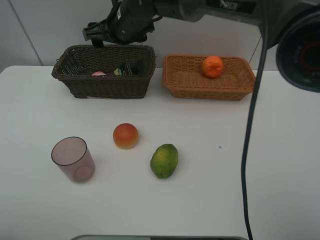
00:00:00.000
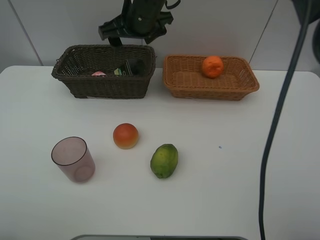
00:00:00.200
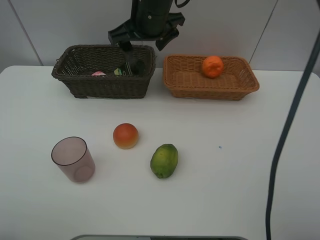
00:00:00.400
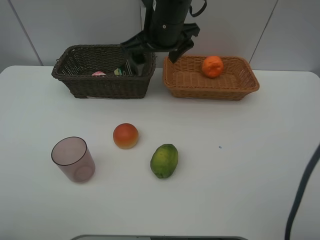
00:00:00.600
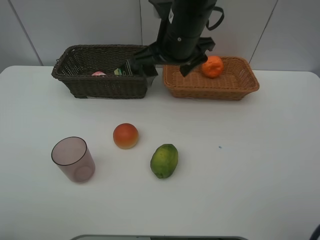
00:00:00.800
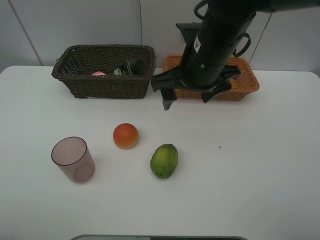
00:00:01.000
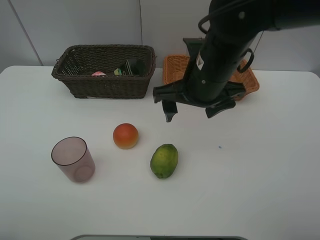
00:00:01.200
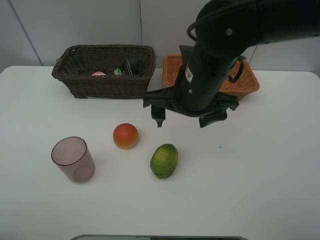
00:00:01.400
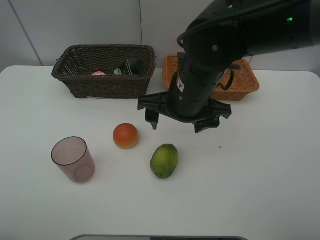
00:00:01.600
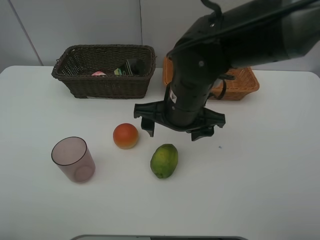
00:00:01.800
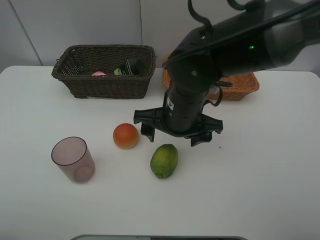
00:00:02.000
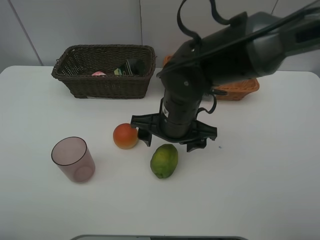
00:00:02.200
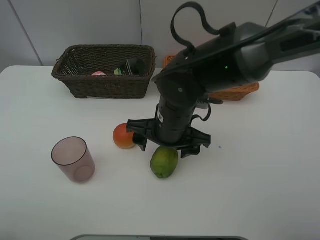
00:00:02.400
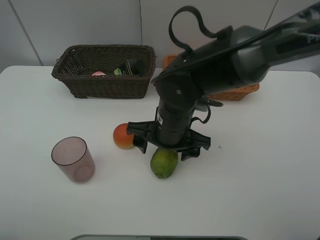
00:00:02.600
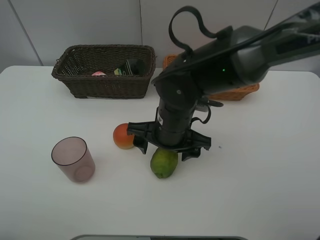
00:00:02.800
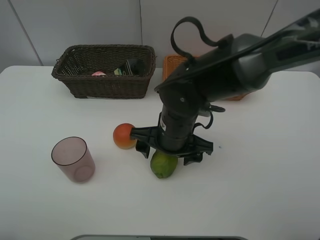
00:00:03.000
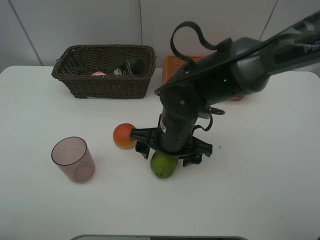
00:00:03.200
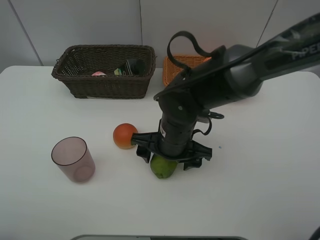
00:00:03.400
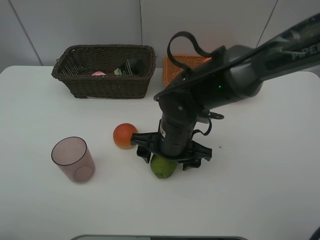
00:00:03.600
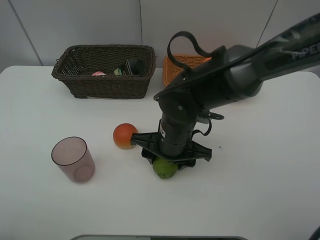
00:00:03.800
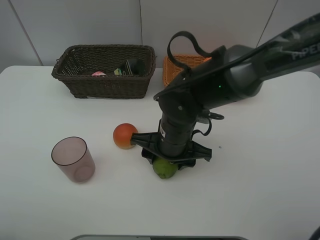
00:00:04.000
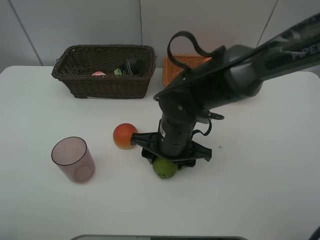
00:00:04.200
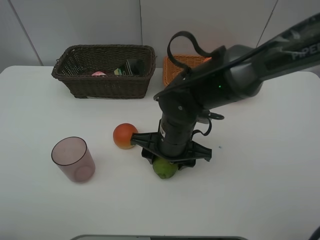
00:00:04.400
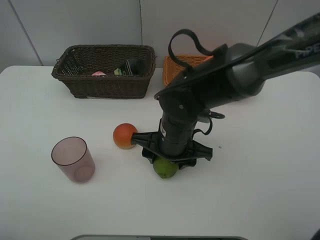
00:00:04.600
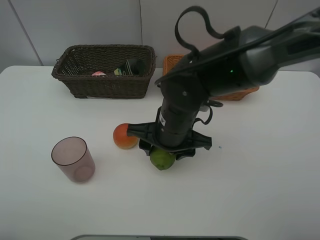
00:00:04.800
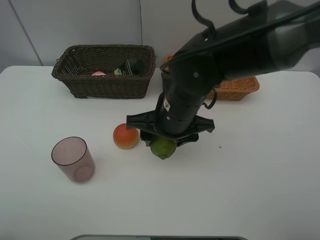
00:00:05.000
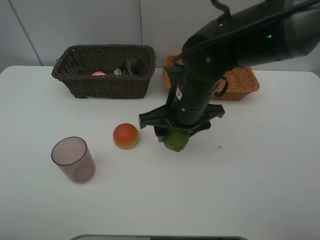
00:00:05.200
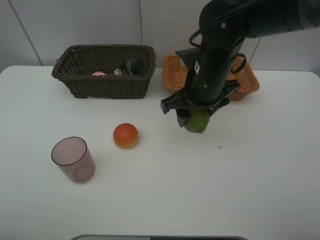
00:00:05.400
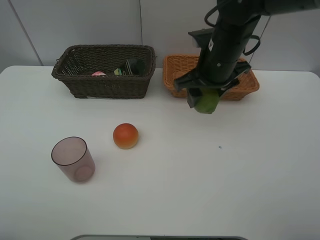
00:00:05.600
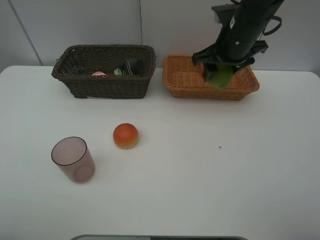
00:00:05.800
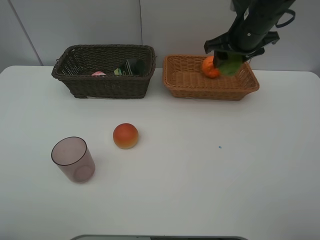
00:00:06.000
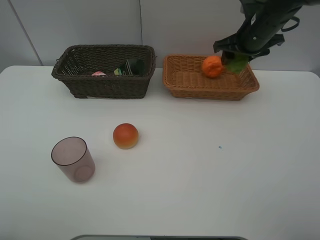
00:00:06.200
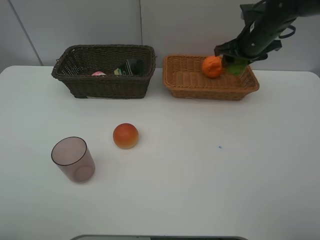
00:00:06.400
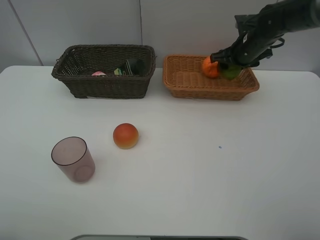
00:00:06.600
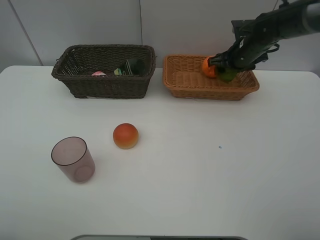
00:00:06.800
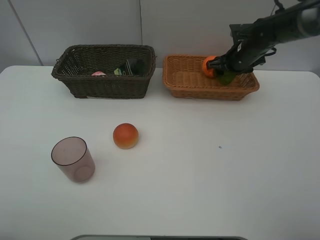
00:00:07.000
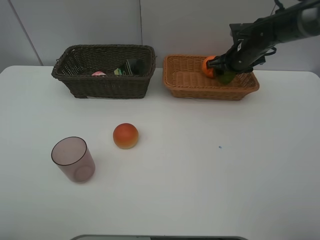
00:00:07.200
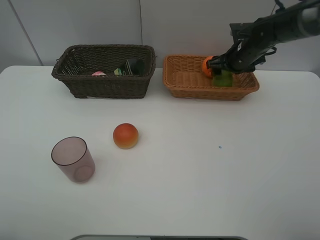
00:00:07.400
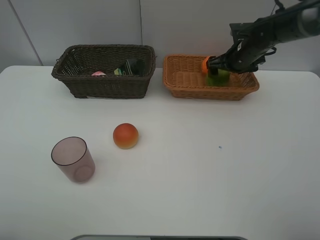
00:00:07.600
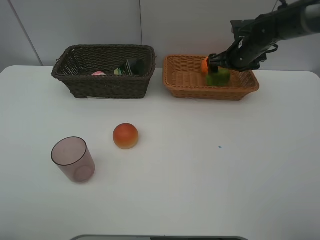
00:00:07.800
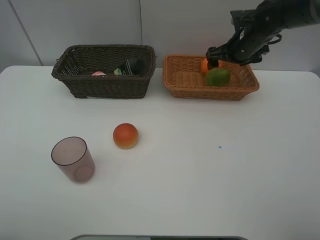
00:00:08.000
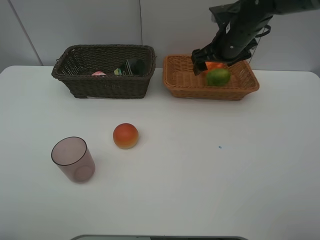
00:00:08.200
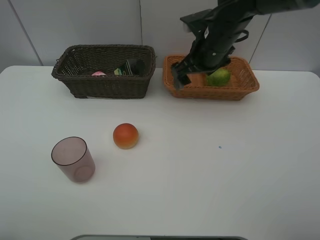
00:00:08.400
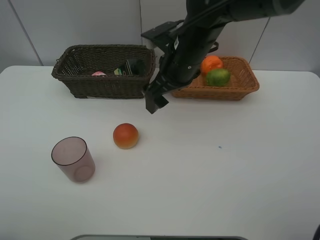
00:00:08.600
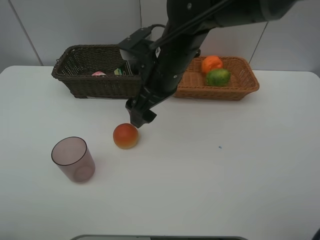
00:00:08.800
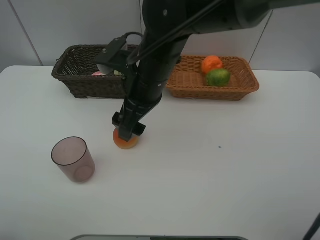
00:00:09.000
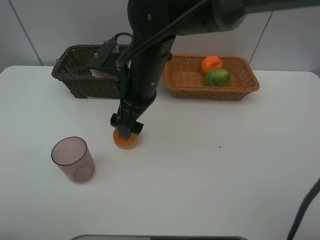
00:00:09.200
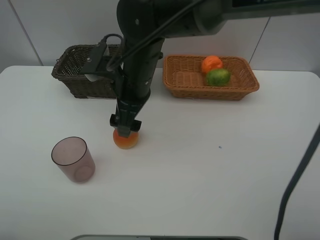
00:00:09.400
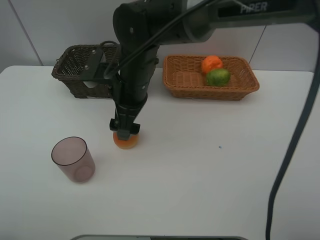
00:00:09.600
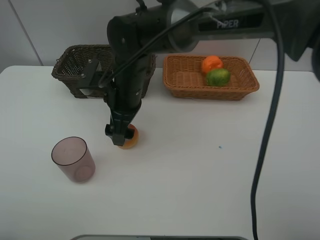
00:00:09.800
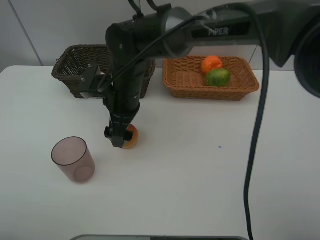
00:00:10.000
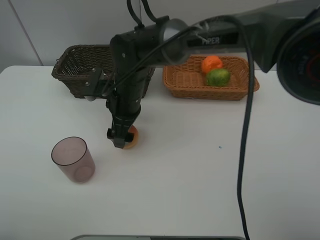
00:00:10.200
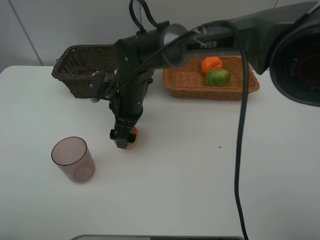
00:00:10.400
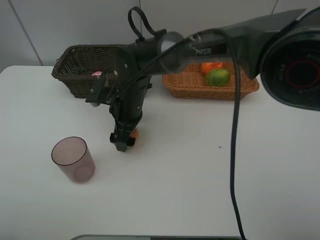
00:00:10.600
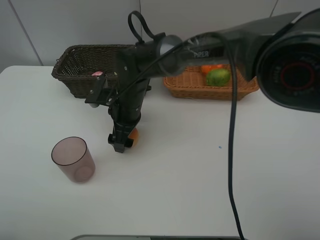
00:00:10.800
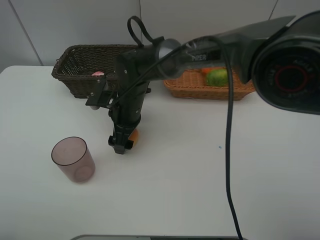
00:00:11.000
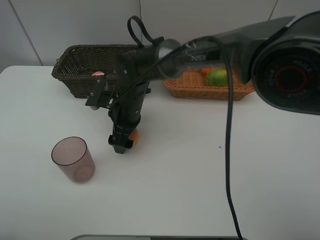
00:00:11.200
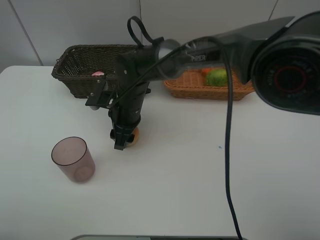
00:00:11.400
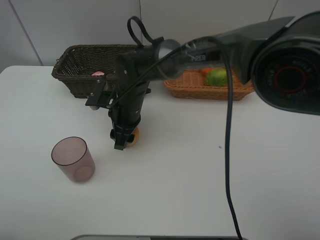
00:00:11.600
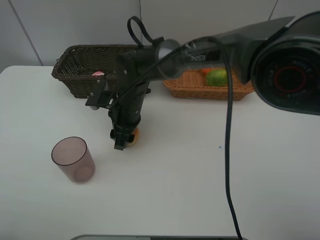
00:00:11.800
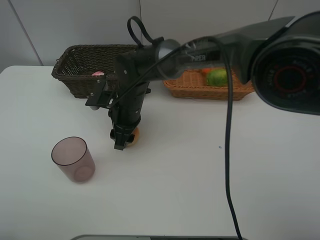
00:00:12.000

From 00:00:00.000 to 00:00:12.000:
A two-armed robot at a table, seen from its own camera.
Task of the whole recording: place multiple objects separately in different baskets.
From 00:00:00.000 to 00:00:01.600: The right gripper moves backward and to the right, about 20 cm.
From 00:00:01.600 to 00:00:03.000: The right gripper goes roughly 10 cm downward.
From 00:00:03.000 to 00:00:04.400: The grippers stay close to where they were, moving slightly.
From 00:00:04.400 to 00:00:06.000: The right gripper moves to the right, forward and upward, approximately 25 cm.
From 00:00:06.000 to 00:00:07.600: The right gripper travels downward and forward by approximately 10 cm, and opens up.
From 00:00:07.600 to 00:00:09.000: The right gripper is displaced to the left and backward by roughly 30 cm.
From 00:00:09.000 to 00:00:10.400: The right gripper shifts approximately 10 cm downward.
From 00:00:10.400 to 00:00:12.000: The right gripper closes up.

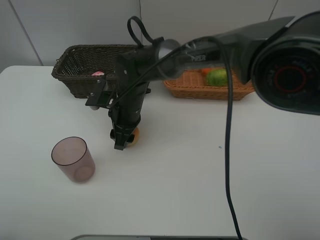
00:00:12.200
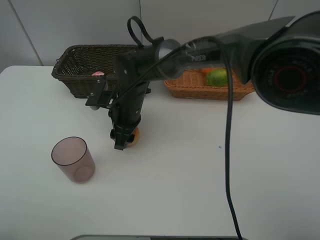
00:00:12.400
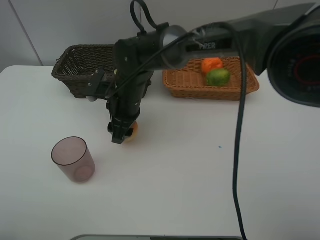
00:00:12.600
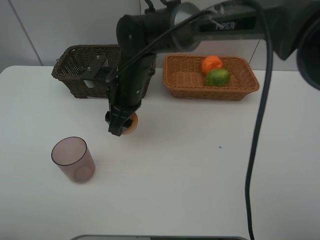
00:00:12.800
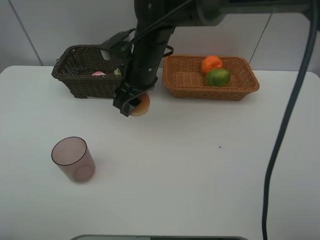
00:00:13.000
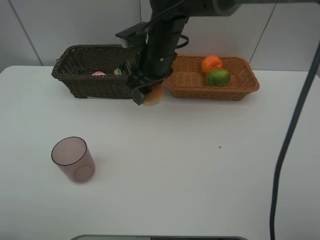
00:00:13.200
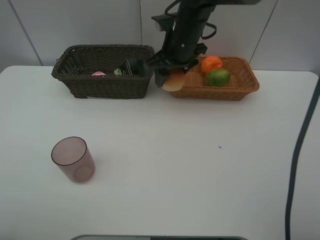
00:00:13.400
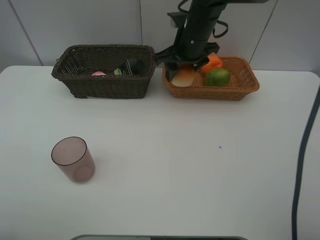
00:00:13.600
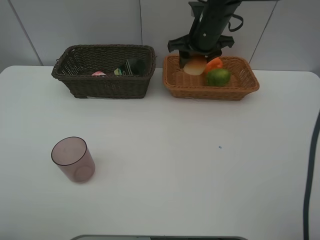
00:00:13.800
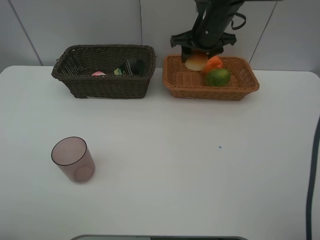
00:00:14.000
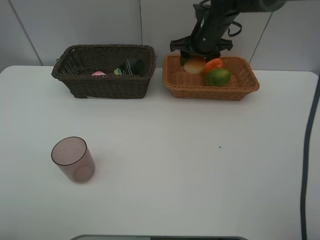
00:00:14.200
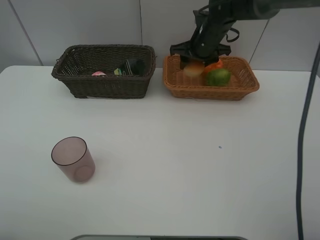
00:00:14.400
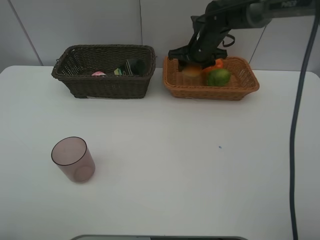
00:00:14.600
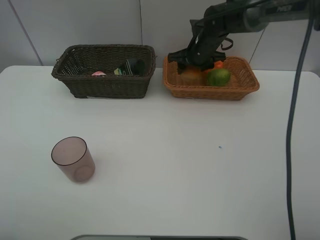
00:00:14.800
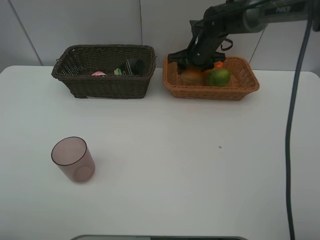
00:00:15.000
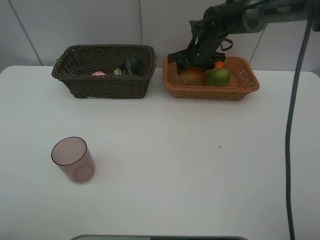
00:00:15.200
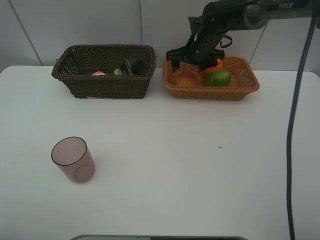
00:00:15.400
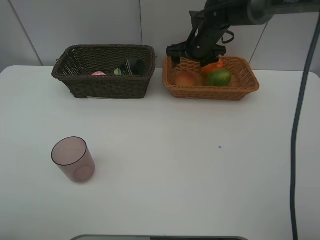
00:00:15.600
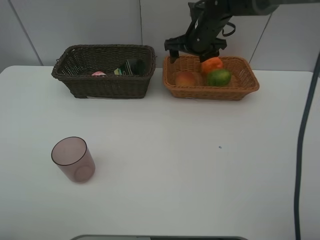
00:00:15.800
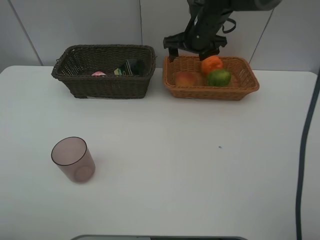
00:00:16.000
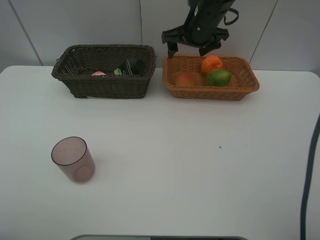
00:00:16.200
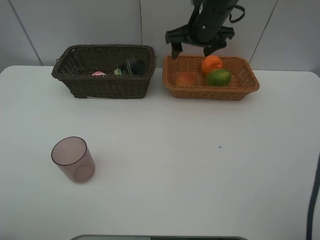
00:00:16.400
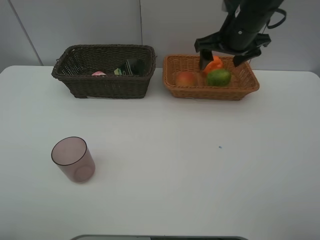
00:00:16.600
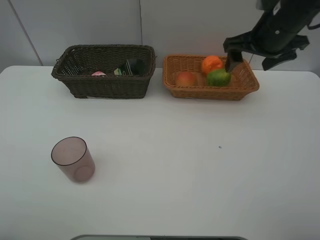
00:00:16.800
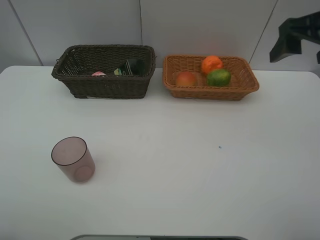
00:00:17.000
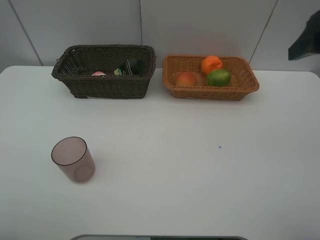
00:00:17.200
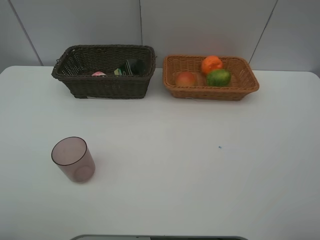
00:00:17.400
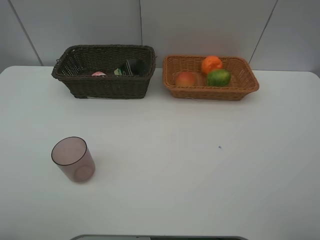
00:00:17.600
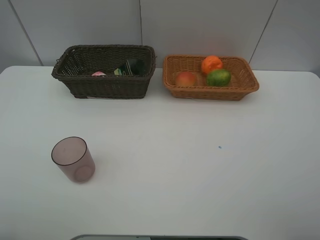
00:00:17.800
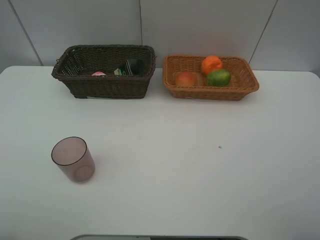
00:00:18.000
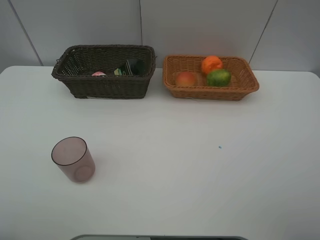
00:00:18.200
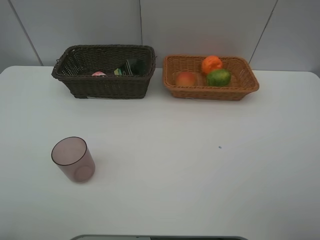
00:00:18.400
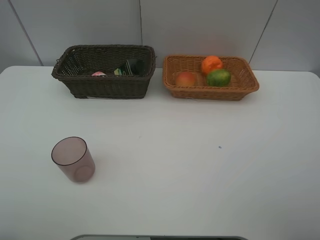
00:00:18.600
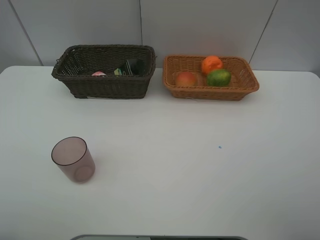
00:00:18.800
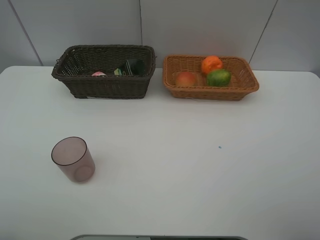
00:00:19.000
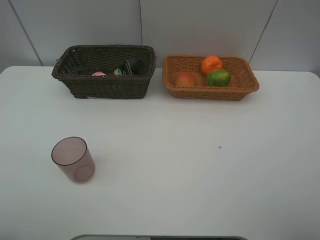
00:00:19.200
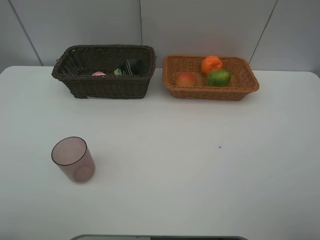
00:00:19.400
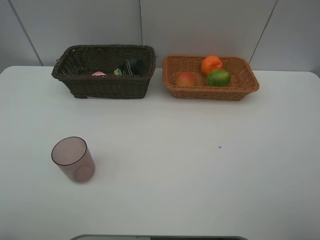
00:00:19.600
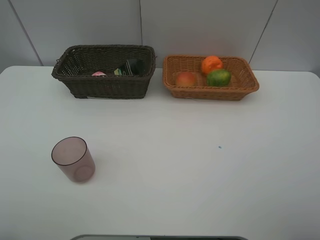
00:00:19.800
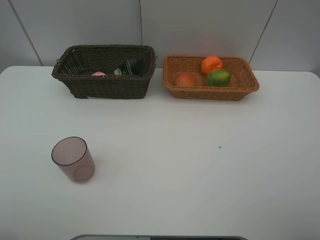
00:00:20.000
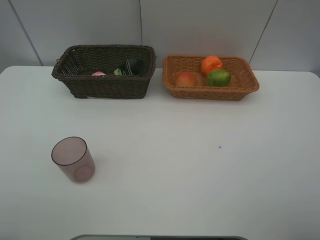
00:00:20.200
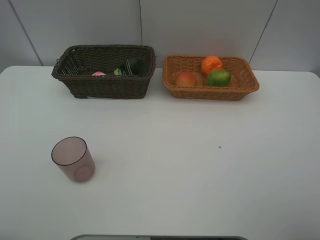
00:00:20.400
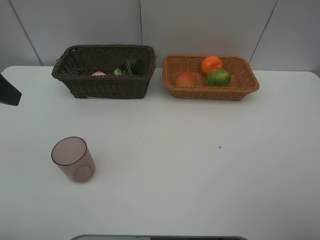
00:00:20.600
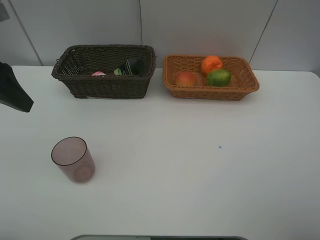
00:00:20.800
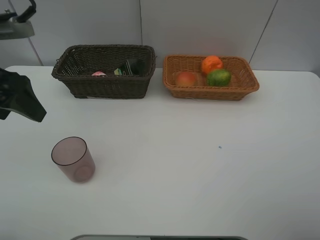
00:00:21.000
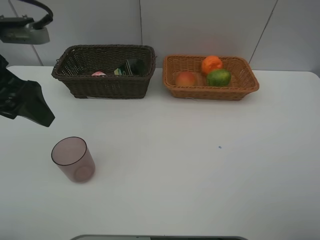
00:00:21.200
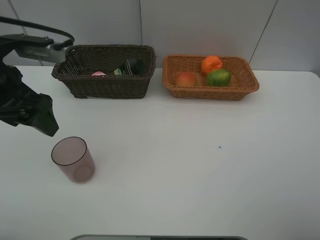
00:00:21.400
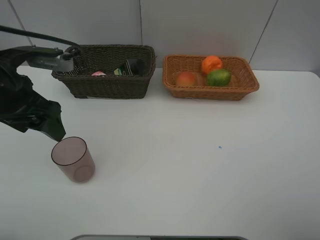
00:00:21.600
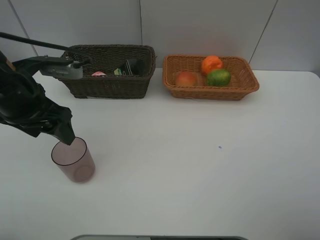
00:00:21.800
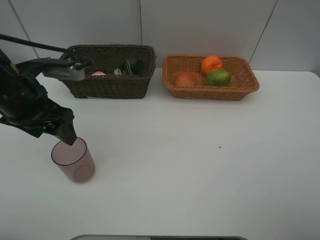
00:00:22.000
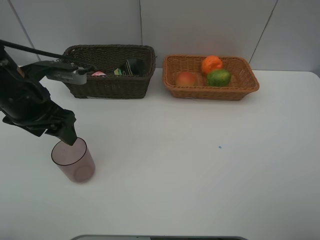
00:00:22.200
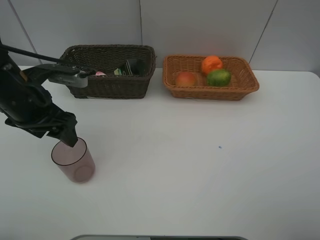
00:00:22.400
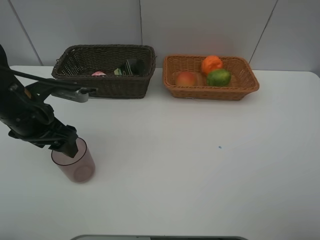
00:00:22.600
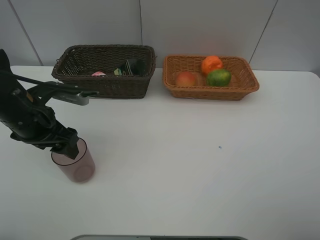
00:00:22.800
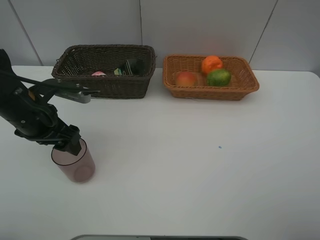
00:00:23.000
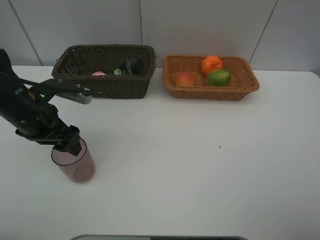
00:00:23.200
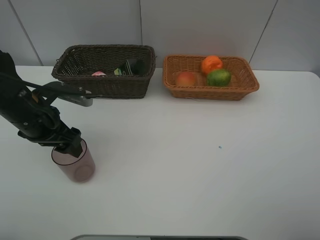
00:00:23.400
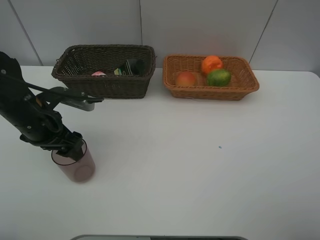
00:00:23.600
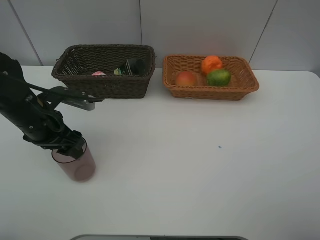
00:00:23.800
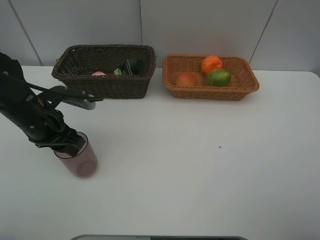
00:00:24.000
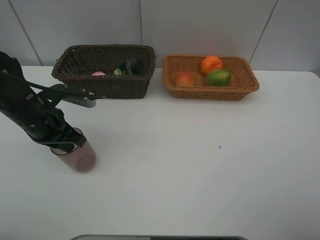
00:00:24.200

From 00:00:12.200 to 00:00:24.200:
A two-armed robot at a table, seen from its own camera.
Task of the whole recording: place multiple objects separately in different baskets.
From 00:00:12.200 to 00:00:13.800: The right gripper is displaced to the right, upward and forward by approximately 25 cm.
From 00:00:13.800 to 00:00:15.200: The right gripper travels downward by approximately 5 cm.
From 00:00:15.200 to 00:00:16.600: The right gripper travels upward and backward by roughly 15 cm.
From 00:00:16.600 to 00:00:18.200: The right gripper heads backward, covering approximately 35 cm.
From 00:00:19.800 to 00:00:21.200: The left gripper moves forward, about 20 cm.
From 00:00:21.200 to 00:00:22.600: The left gripper shifts about 10 cm downward.
From 00:00:22.600 to 00:00:24.200: The left gripper closes its fingers.
